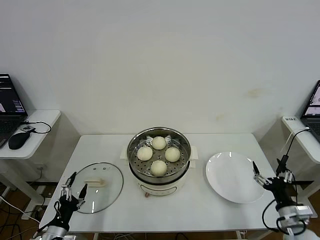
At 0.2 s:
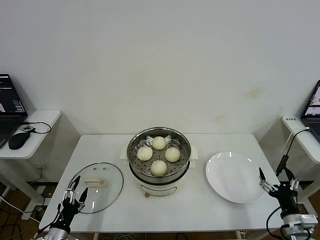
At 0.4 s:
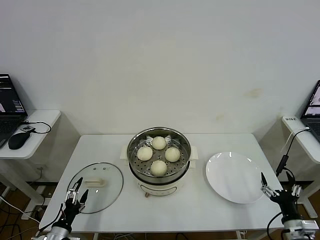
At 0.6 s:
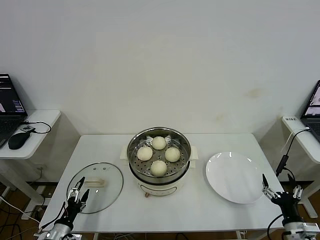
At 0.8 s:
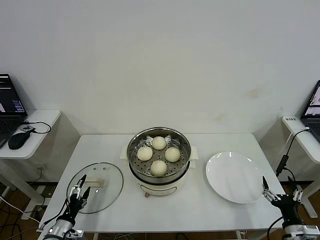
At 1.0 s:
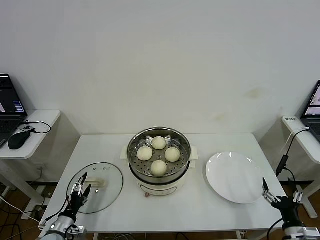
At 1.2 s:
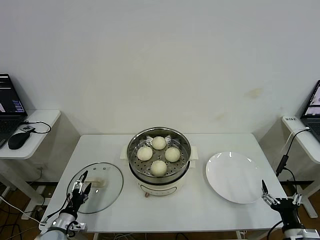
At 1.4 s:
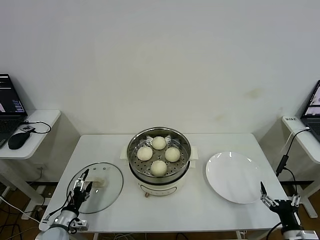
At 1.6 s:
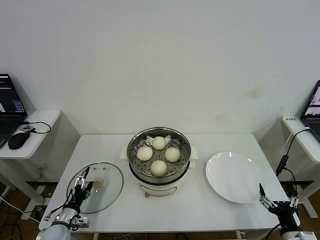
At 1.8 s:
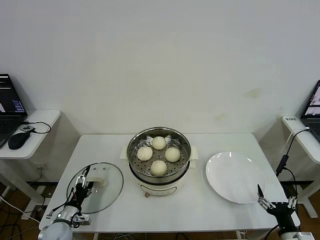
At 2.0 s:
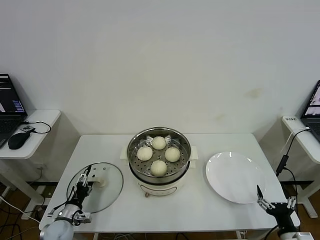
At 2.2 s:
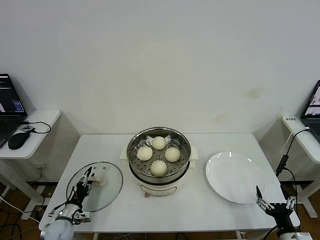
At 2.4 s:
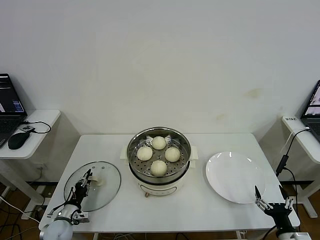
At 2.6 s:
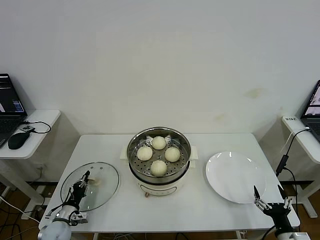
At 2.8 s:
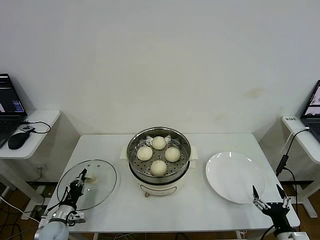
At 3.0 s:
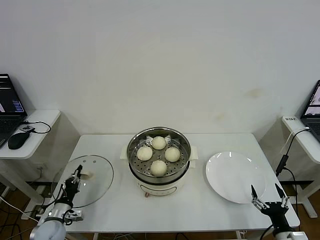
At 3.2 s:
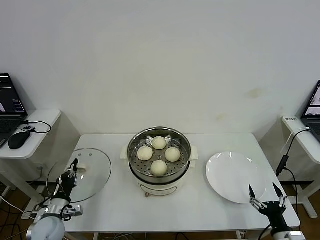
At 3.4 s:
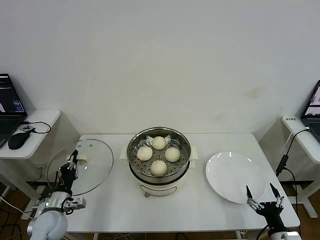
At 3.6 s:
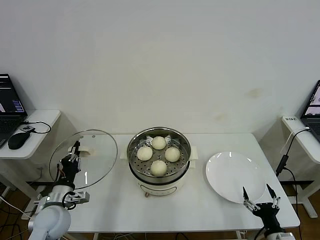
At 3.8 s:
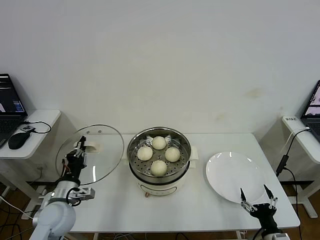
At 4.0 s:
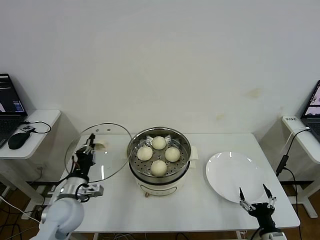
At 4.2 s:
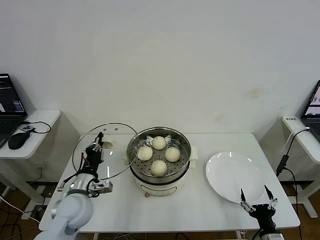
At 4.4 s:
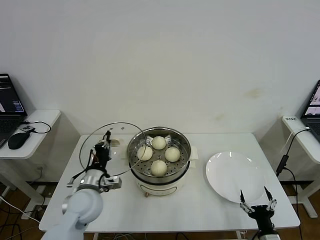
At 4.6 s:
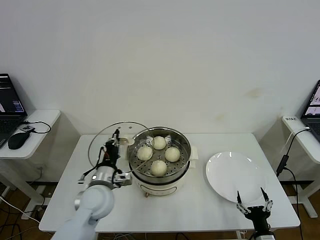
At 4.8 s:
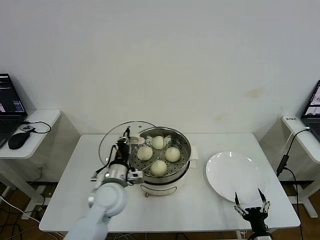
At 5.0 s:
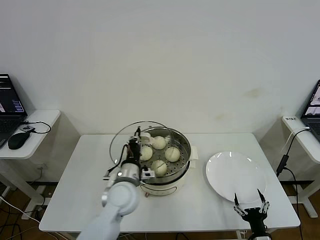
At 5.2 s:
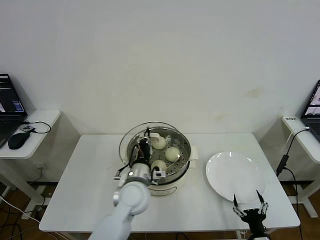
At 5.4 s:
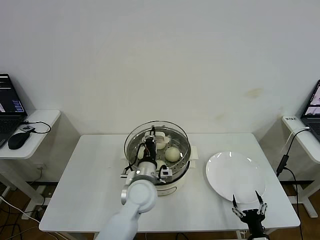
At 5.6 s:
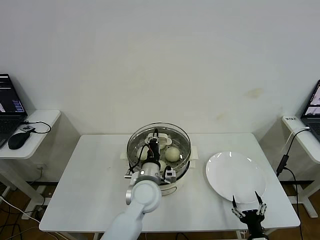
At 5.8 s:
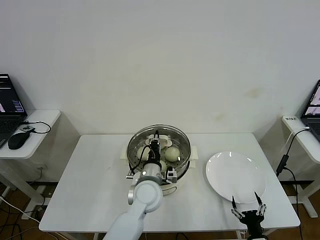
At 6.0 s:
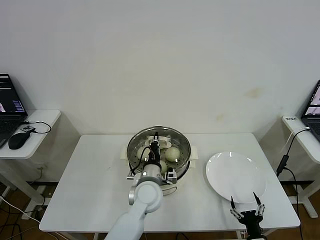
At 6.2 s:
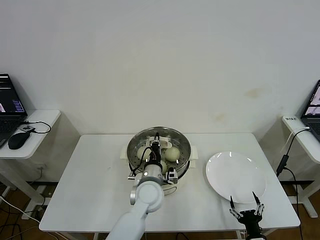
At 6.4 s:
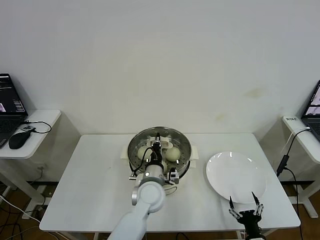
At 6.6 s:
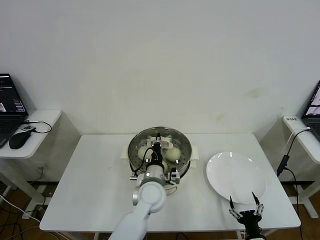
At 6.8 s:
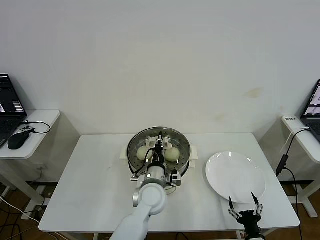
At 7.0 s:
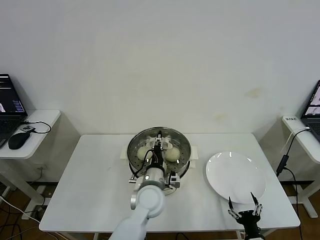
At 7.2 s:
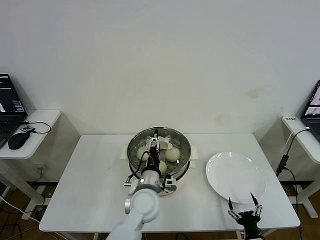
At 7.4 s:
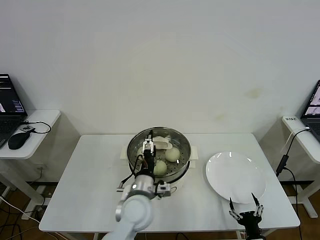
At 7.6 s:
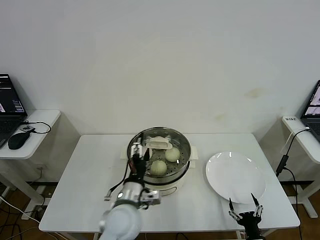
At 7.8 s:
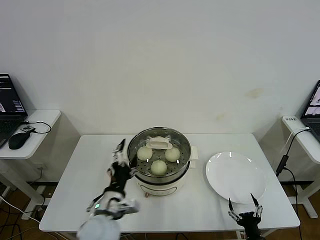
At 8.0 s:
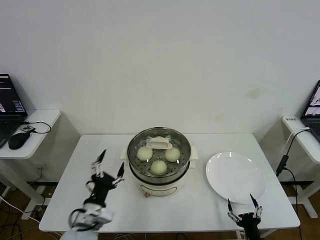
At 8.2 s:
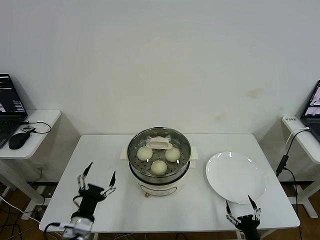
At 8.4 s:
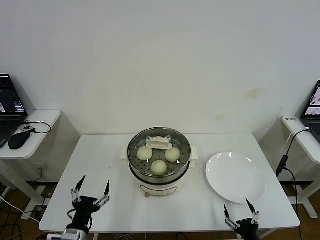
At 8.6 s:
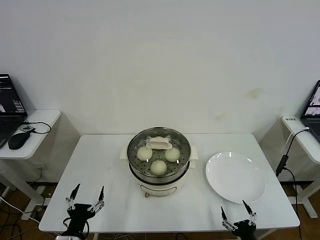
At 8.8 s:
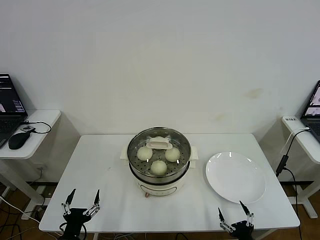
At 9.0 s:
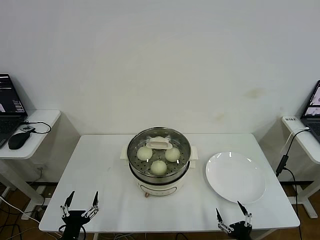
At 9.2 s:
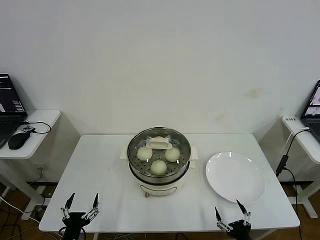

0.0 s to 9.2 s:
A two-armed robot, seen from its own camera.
Step, 0.0 to 2.6 s: Grasp the pot lid with left gripper.
Step, 3.0 to 7.0 s: Place the pot lid on the steamer with left gripper.
0.0 to 1.6 s: The left gripper shifts some 10 cm forward and downward; the right gripper heads backward, covering approximately 5 cm.
1.6 to 3.0 s: The left gripper closes.
3.0 to 4.6 s: The left gripper is displaced to the right and upward by about 25 cm. Meanwhile the right gripper travels to the left by roughly 5 cm.
4.6 to 6.2 s: The left gripper shifts roughly 15 cm to the right.
6.2 to 7.6 s: The left gripper heads backward, covering about 10 cm, and opens up.
7.6 to 9.2 s: The right gripper shifts by about 5 cm, while the left gripper is displaced to the left, backward and downward by approximately 30 cm.
